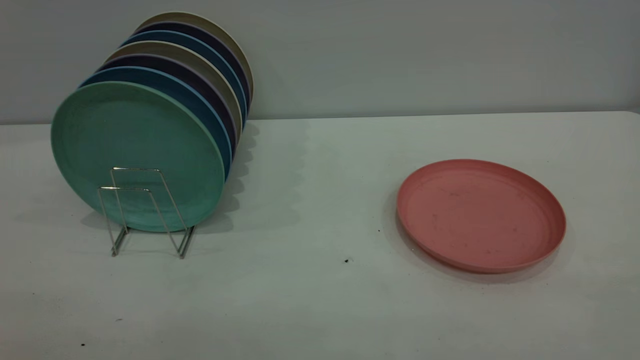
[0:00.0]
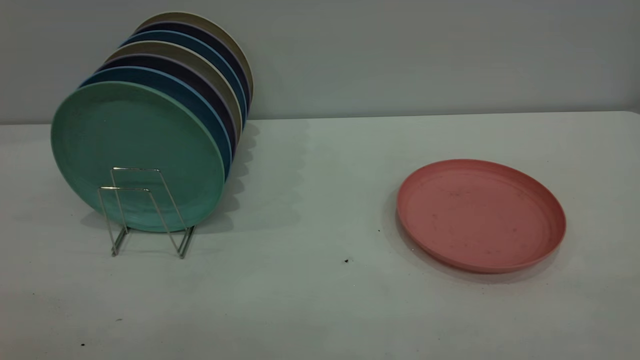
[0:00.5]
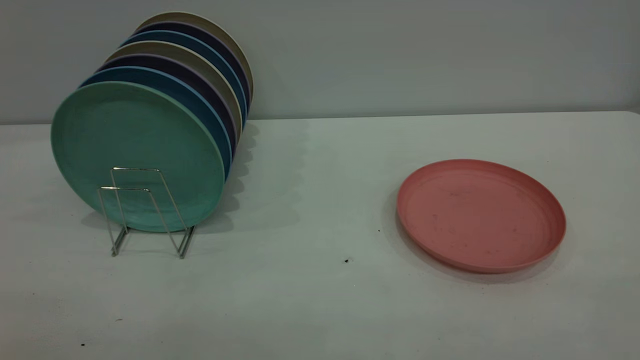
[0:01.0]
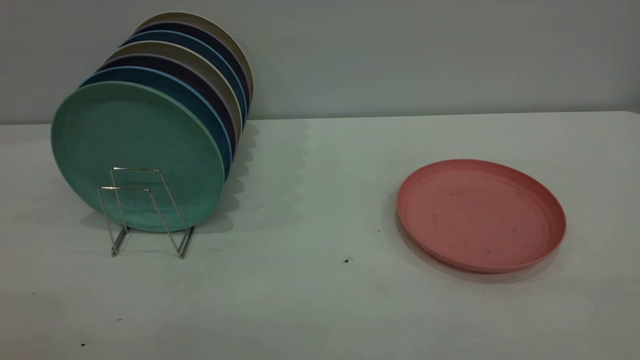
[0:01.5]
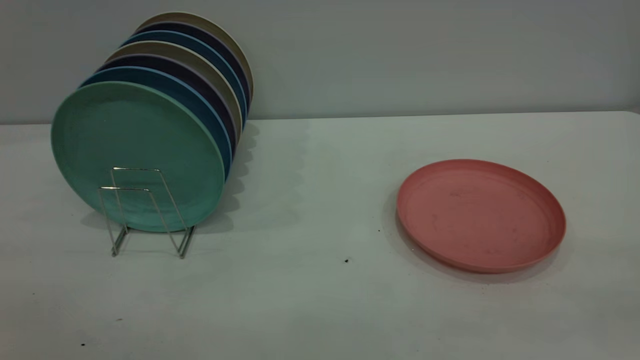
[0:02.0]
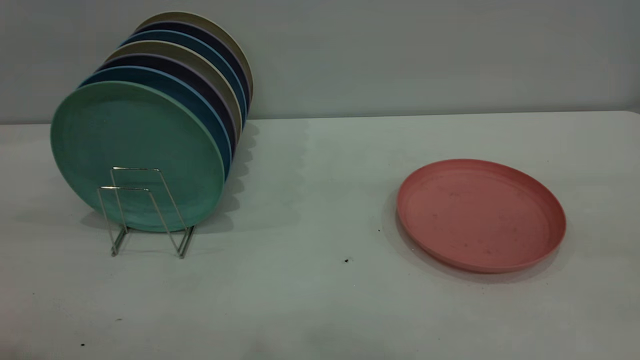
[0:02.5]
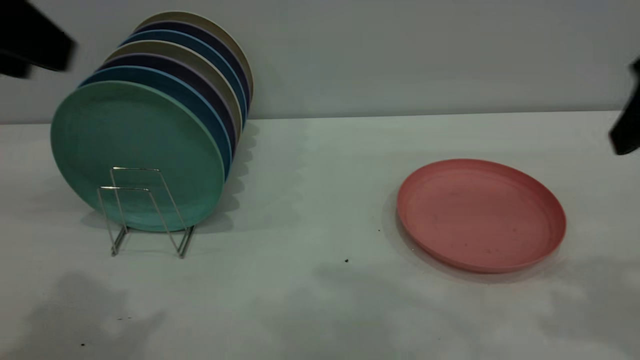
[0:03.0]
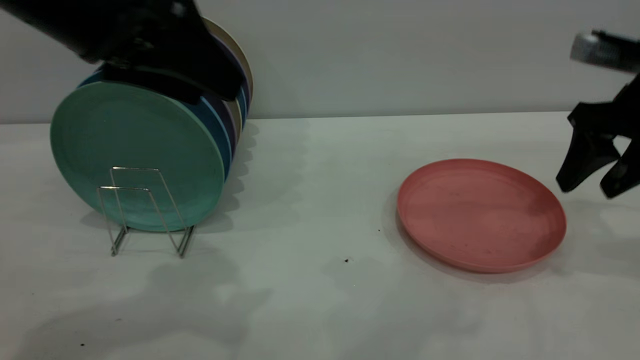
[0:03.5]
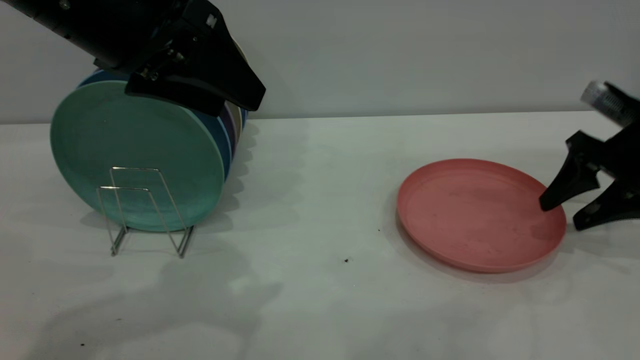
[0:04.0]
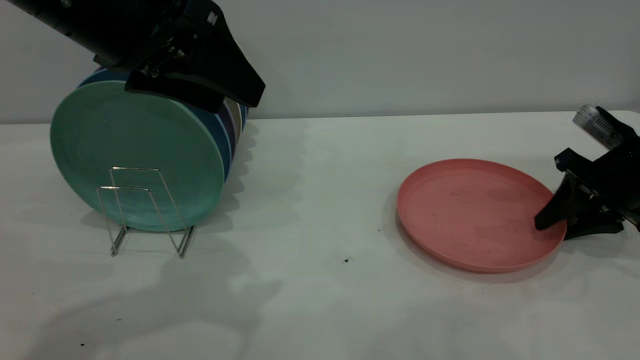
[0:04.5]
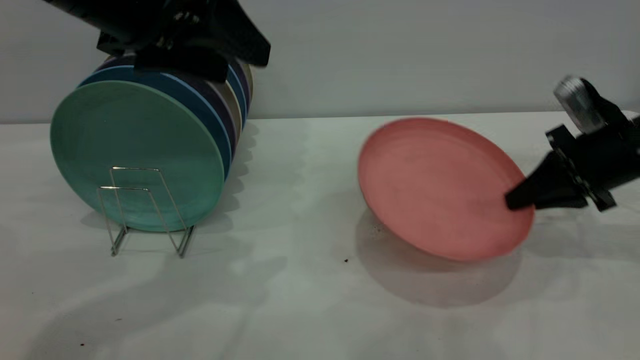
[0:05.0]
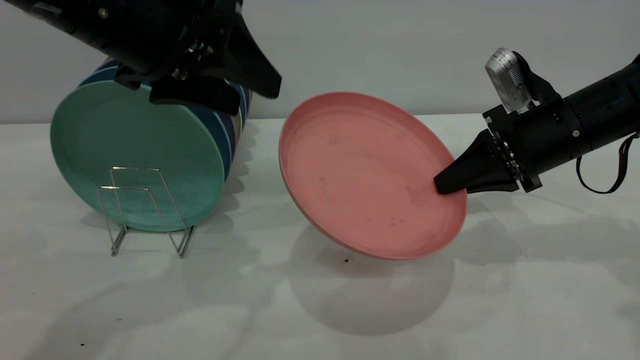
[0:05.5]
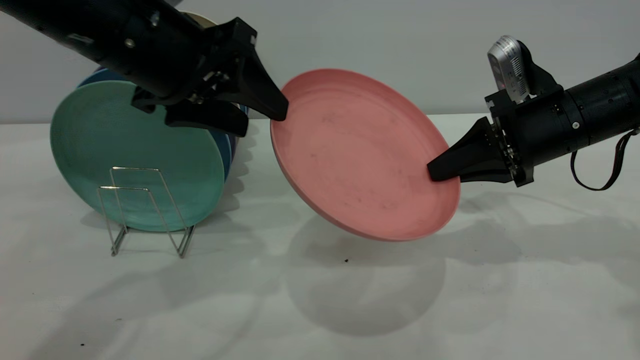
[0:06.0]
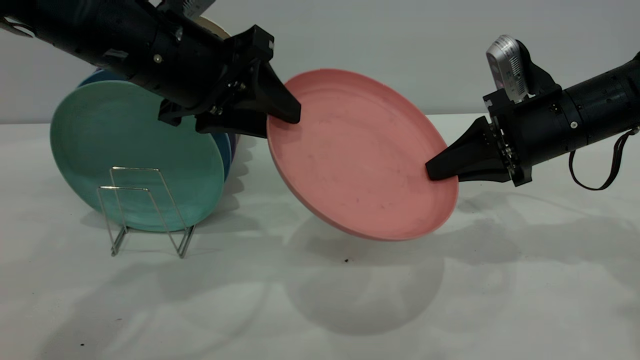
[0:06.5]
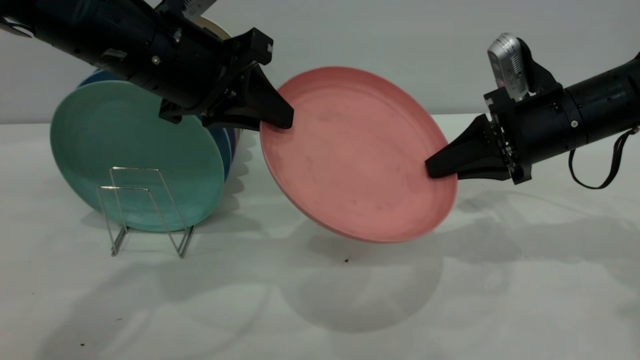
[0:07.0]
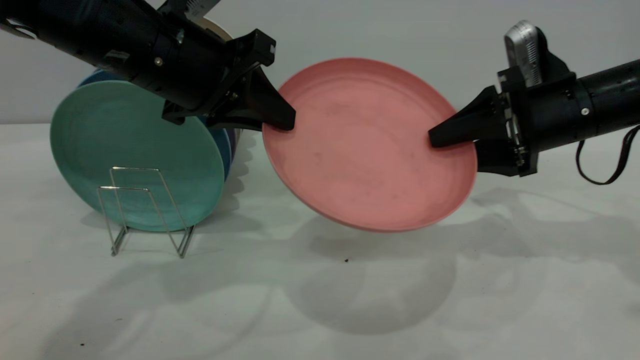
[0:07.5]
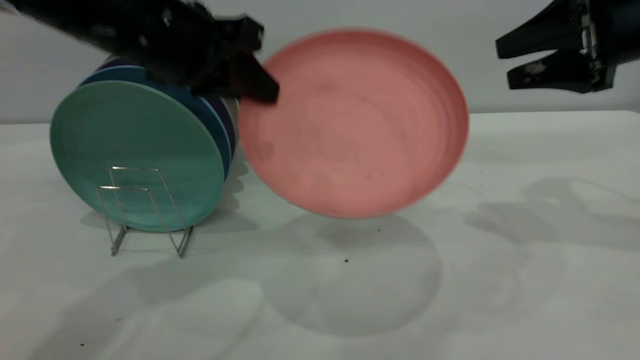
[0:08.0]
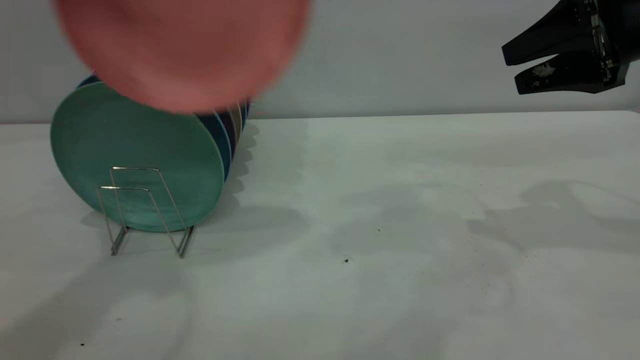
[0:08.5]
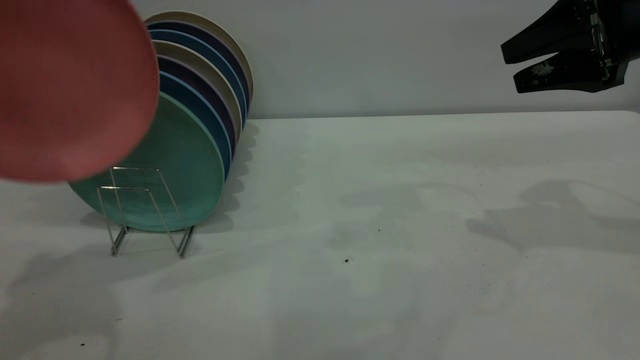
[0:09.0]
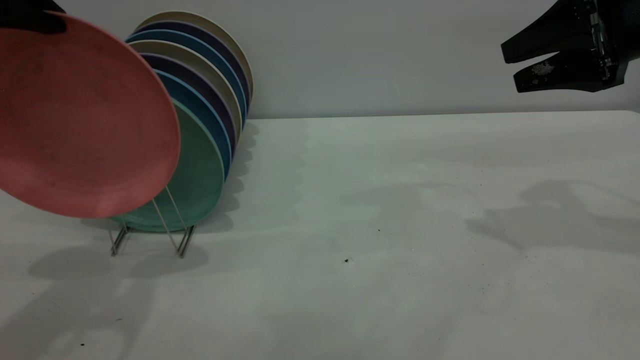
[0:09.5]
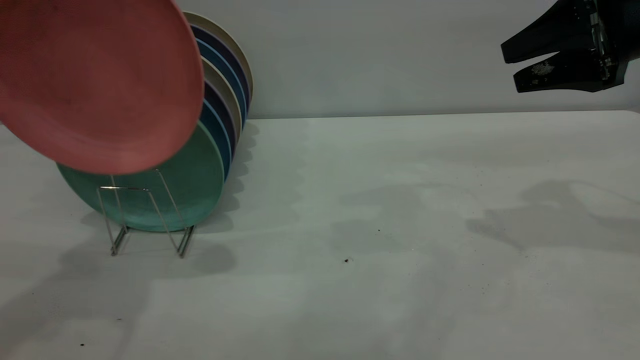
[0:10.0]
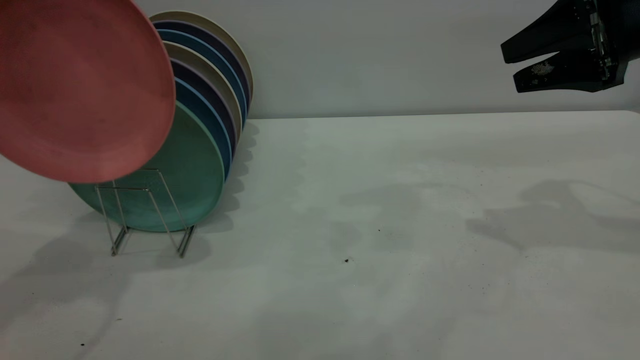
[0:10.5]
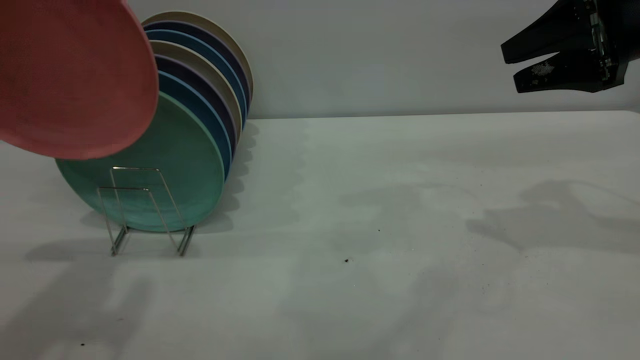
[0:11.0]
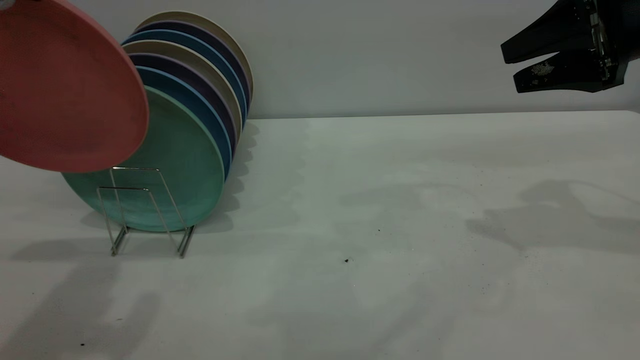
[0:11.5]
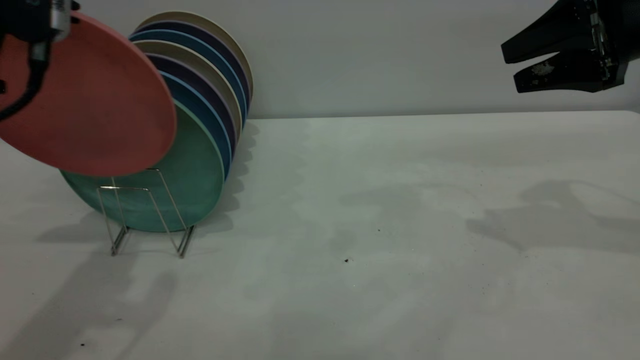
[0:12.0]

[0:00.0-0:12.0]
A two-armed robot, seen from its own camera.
Task of the whole recording: the right gripper grasp the pink plate, the right gripper pass the pink plate to the left gripper, and the left gripper place the pink plate on the plate rack.
Step, 0:00.0 to 0:05.0: Pick up the plate with the right gripper.
Step, 0:05.5 to 0:07.5: Pass the plate from the right gripper to the left gripper.
0:02.0 to 0:04.0: The left gripper heads forward and to the right, covering roughly 30 cm, while the right gripper shifts roughly 50 cm forward and downward.
0:04.0 to 0:06.0: The right gripper travels to the left by some 10 cm, and closes its fingers; the left gripper ends up roughly 5 cm from where it was.
0:06.0 to 0:08.0: The left gripper closes up. The right gripper heads upward and to the right, covering about 10 cm, and opens its fingers.
0:08.0 to 0:10.0: The left gripper goes up and down, roughly 15 cm each way, reversing 2 times.
0:10.0 to 0:12.0: The left gripper travels downward by about 5 cm.

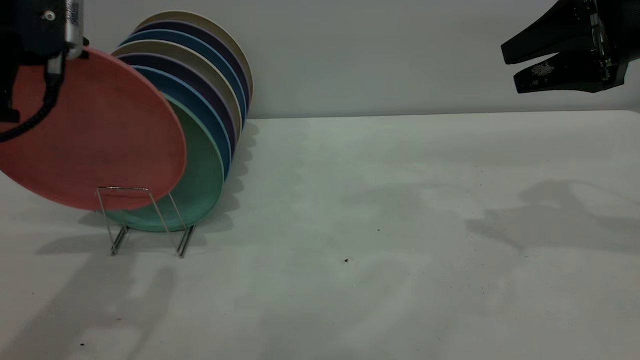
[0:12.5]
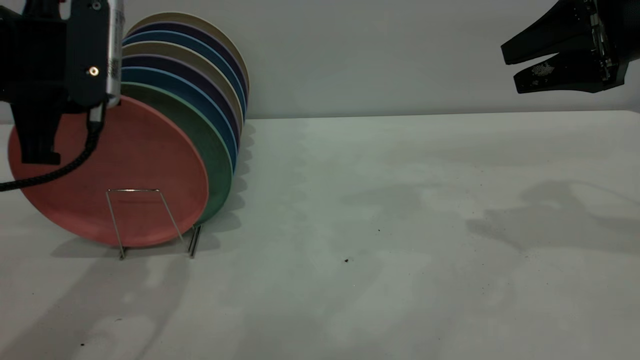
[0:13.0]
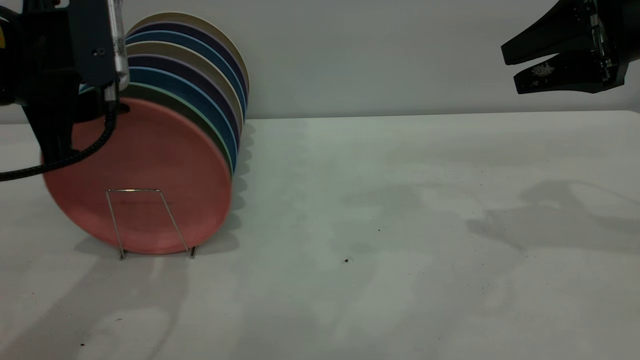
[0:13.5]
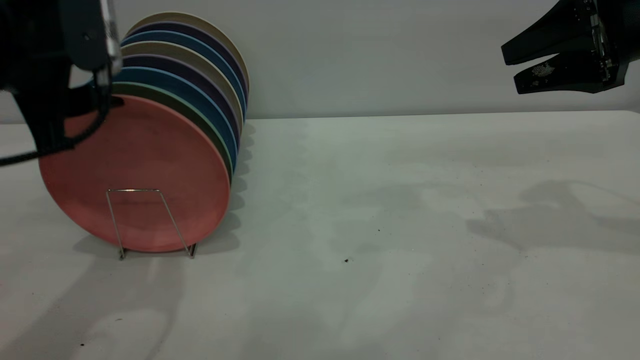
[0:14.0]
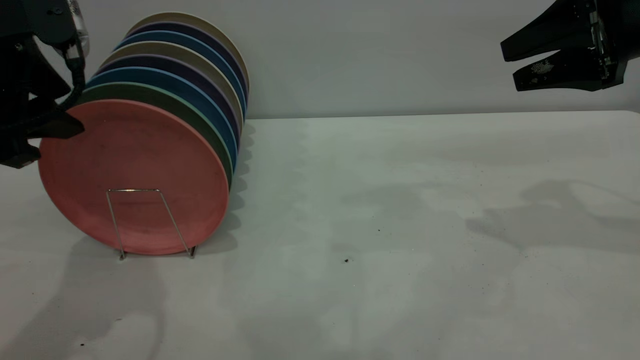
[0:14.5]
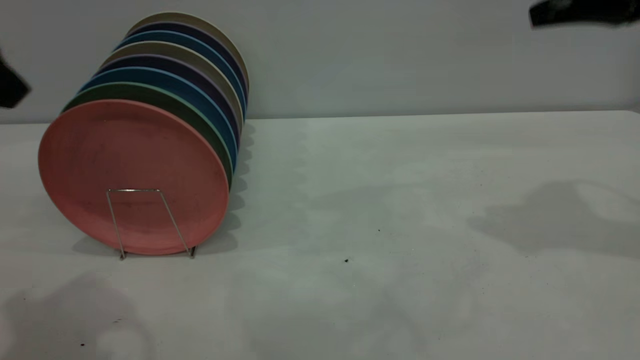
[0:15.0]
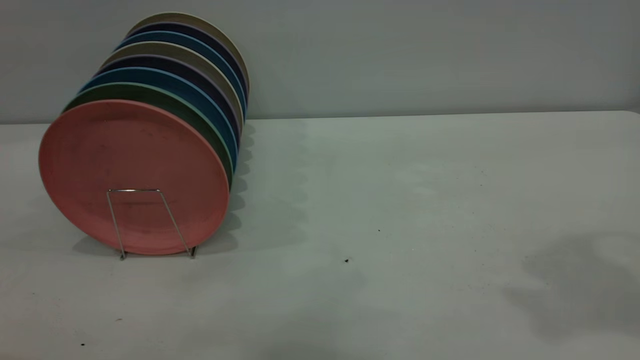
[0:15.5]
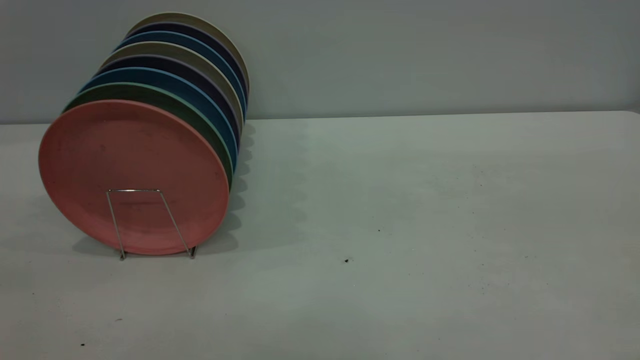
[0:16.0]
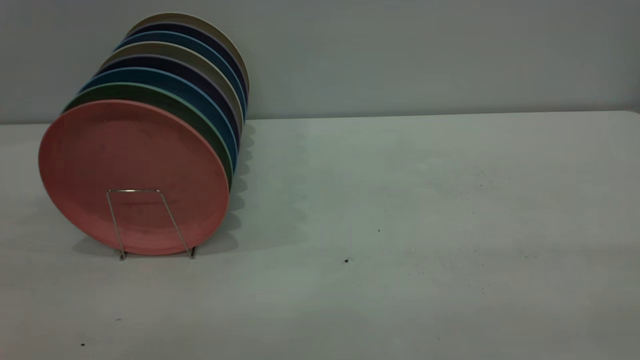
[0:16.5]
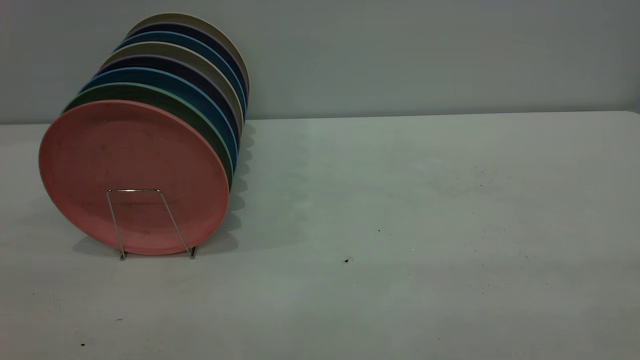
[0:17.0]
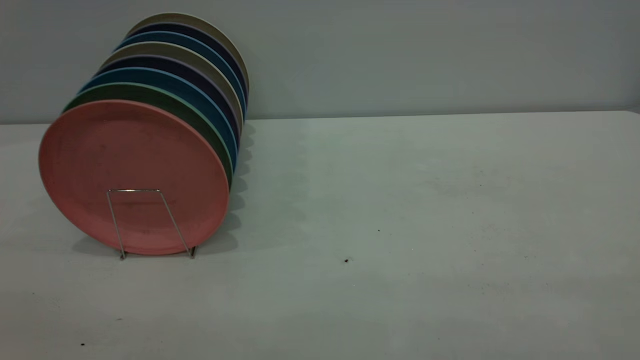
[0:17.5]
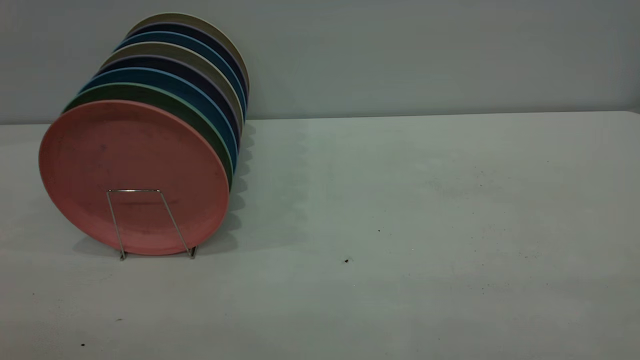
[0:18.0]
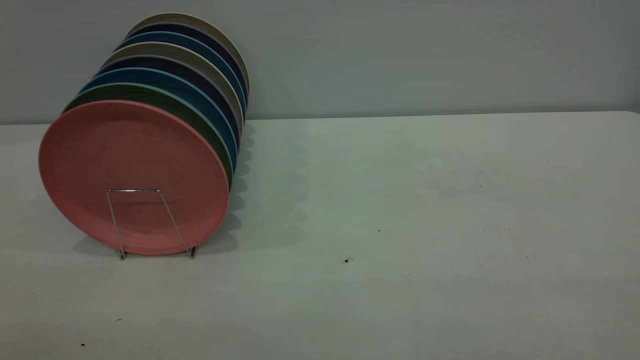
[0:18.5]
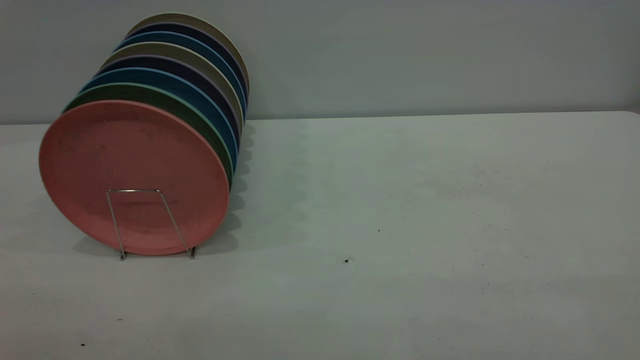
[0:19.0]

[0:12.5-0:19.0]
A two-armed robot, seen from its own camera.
Task of the whole recording: the right gripper grasp the pink plate, the right gripper pass the pink plate to the left gripper, and the left gripper place the pink plate on the plate rack.
Step, 0:12.5 to 0:14.5: Place the plate on the shelf.
0:12.5 to 0:14.5: The left gripper opens.
0:14.5 to 0:17.0: The left gripper shifts about 25 cm backward and upward; the right gripper heads backward, covering approximately 40 cm.
